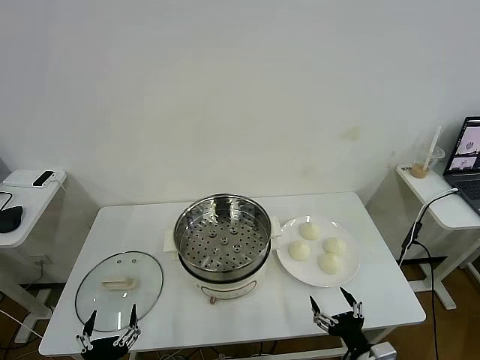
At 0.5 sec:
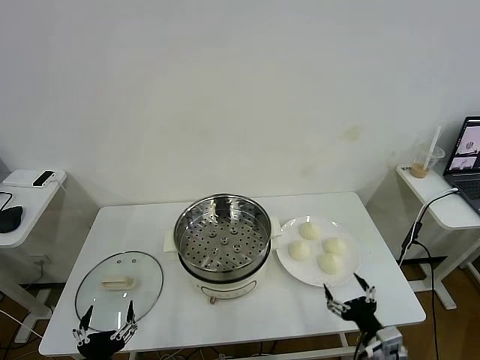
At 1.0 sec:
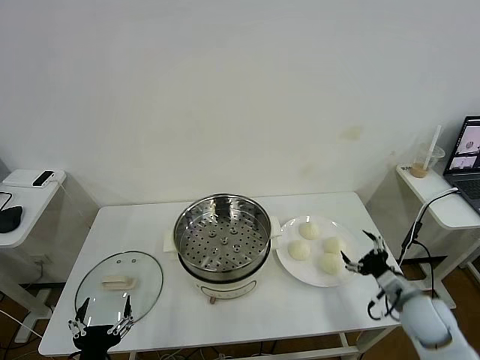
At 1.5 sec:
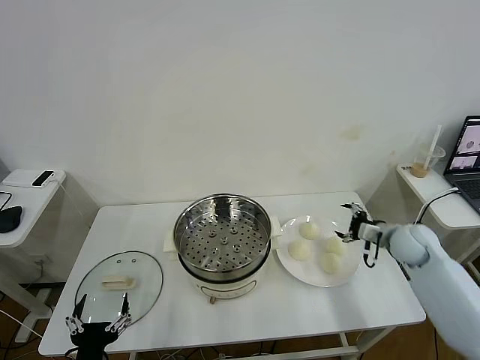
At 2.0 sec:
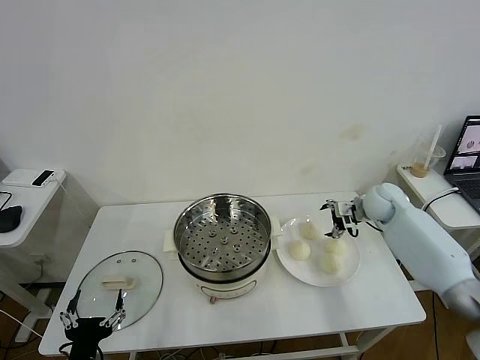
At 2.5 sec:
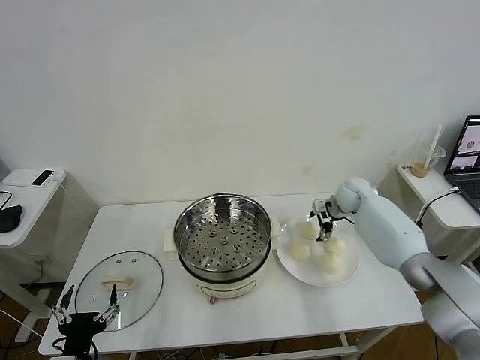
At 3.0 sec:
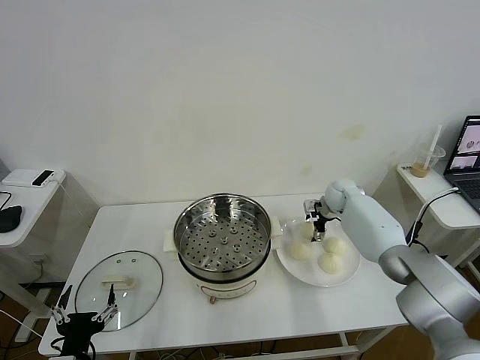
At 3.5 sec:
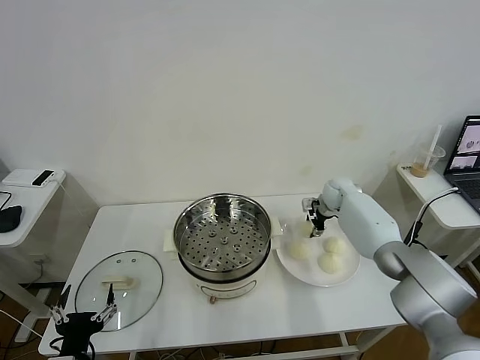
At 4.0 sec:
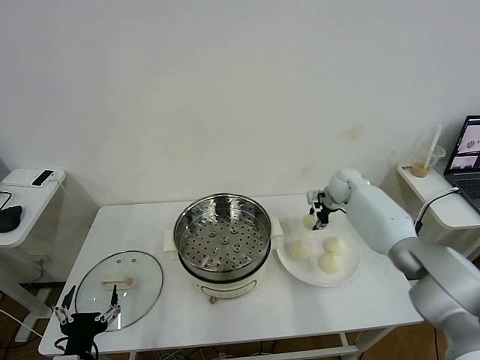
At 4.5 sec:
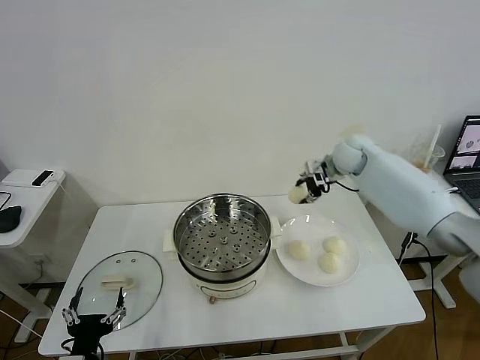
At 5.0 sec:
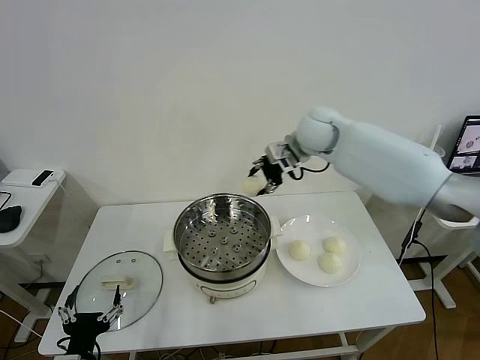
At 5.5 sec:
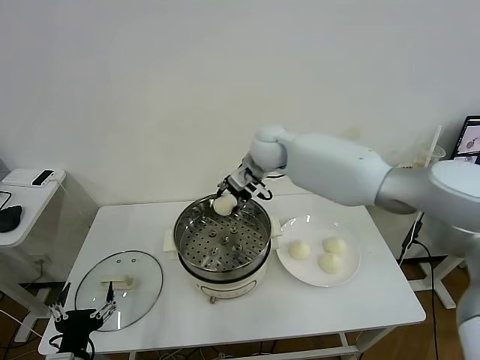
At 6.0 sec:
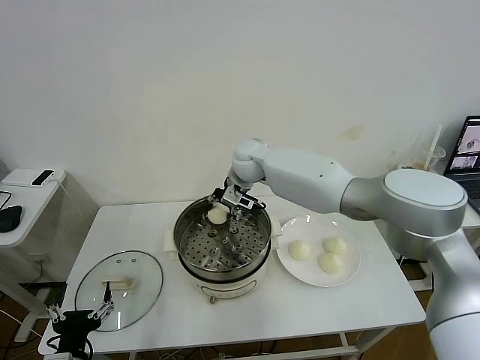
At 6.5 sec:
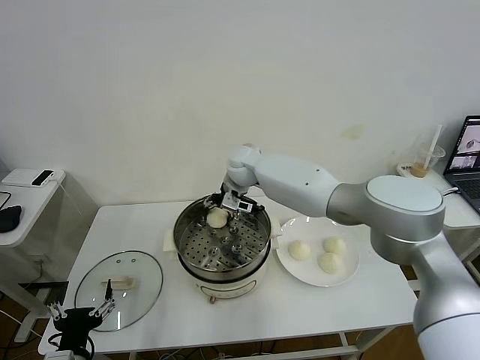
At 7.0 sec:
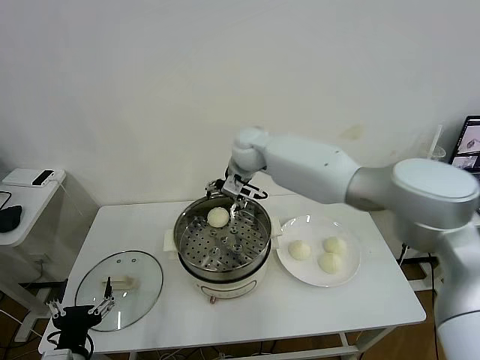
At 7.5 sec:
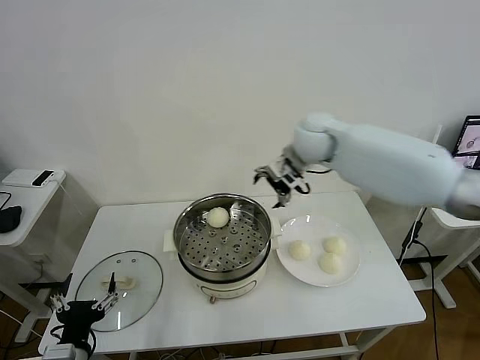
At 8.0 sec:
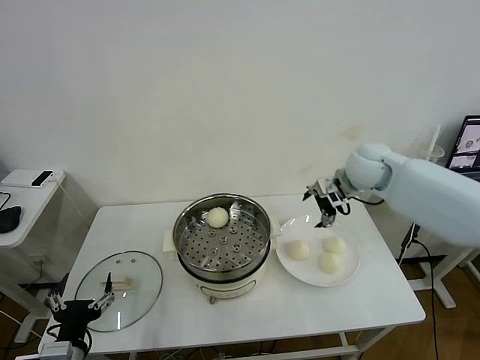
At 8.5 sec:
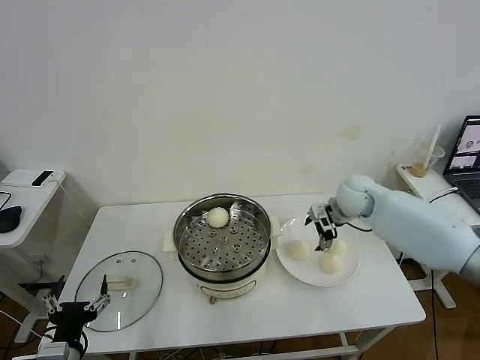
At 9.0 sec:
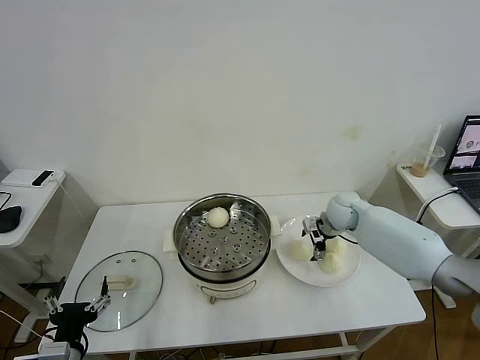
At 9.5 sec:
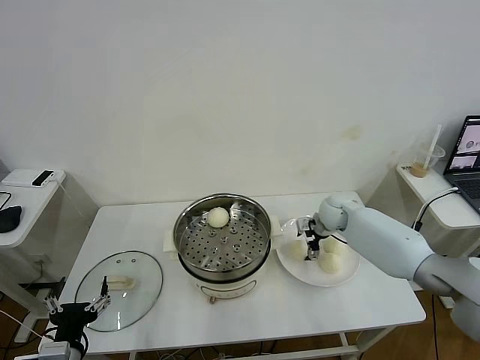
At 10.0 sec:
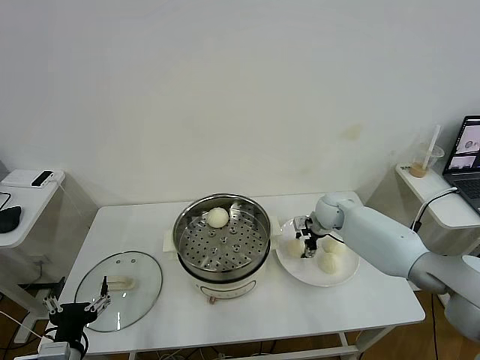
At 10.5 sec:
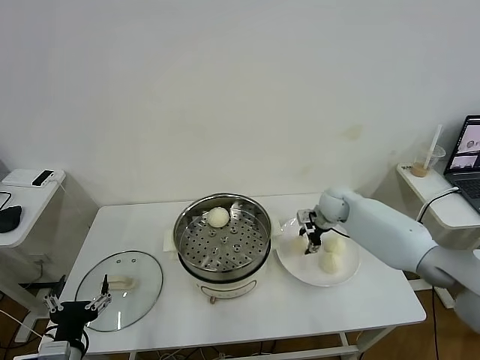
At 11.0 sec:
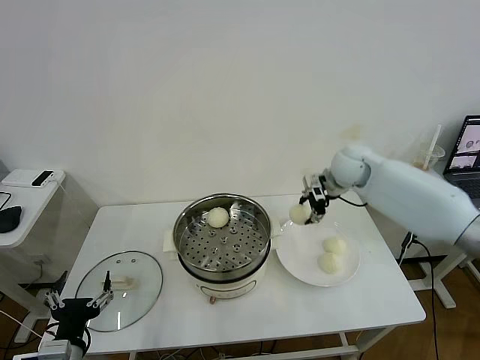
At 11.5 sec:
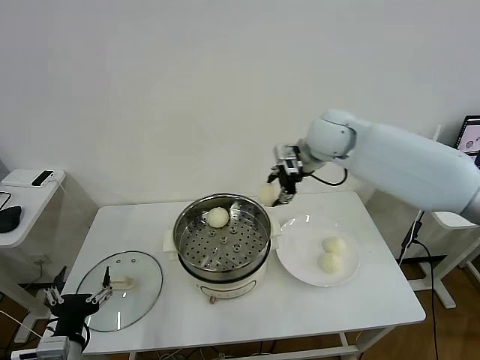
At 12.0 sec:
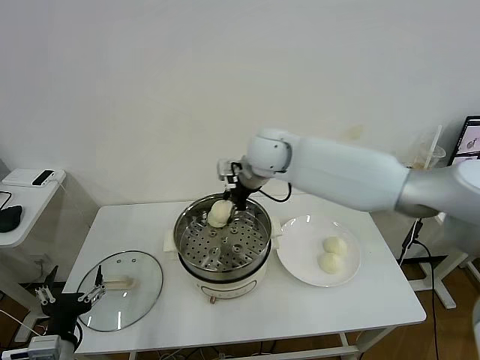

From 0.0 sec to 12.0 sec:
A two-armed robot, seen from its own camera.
Task of the whole recording: take steamed baozi put them in steamer then cover it.
Step, from 0.0 sec to 3.5 sec: Grasp the baozi in the plate with right gripper.
Step, from 4.0 sec to 6.5 sec: Place the baozi on the steamer with right gripper.
Step, from 7.0 sec to 10.0 sec: Grasp the baozi in the plate with right gripper.
From 2.0 sec to 4.0 sec: The right gripper is displaced forward and to the left by about 10 cm, and closes its fingers.
From 4.0 sec to 6.0 sec: The right gripper travels to the left by some 25 cm.
From 6.0 sec to 8.0 sec: The right gripper shifts approximately 25 cm to the right, and opens.
From 8.0 sec to 10.0 sec: The right gripper goes some 20 cm downward, and closes.
From 10.0 sec to 12.0 sec: The right gripper heads upward and to the left, covering roughly 30 cm.

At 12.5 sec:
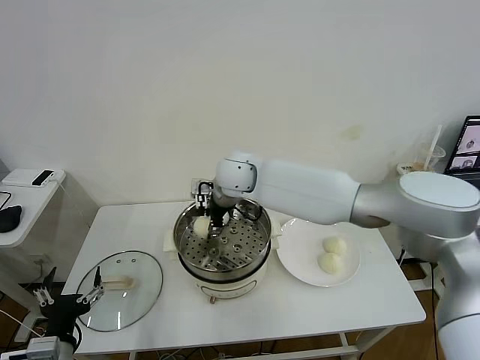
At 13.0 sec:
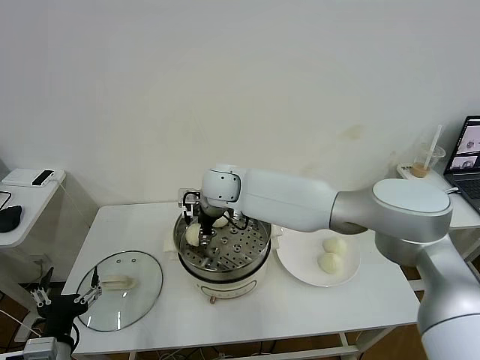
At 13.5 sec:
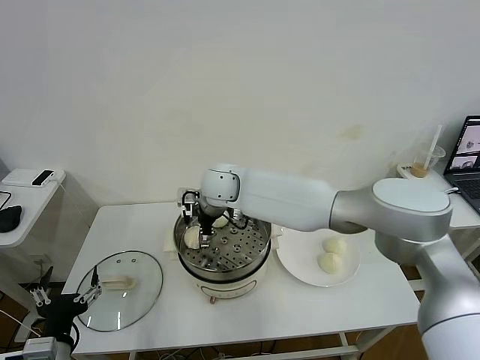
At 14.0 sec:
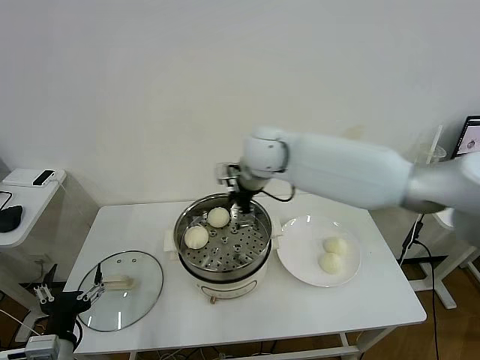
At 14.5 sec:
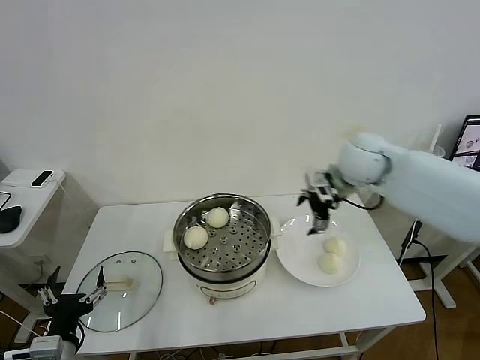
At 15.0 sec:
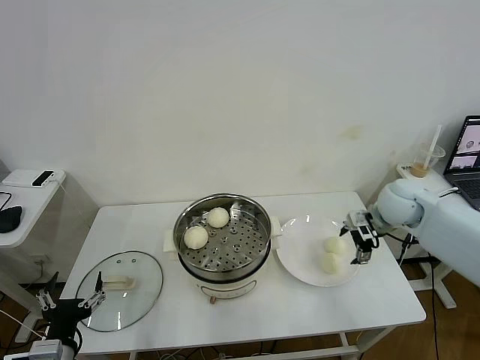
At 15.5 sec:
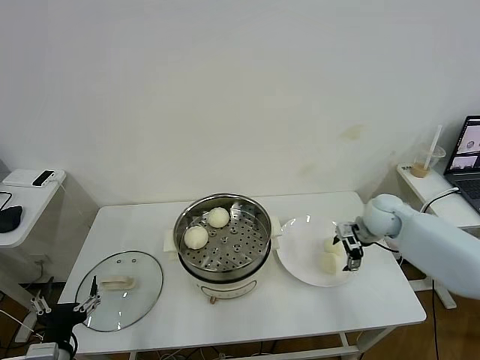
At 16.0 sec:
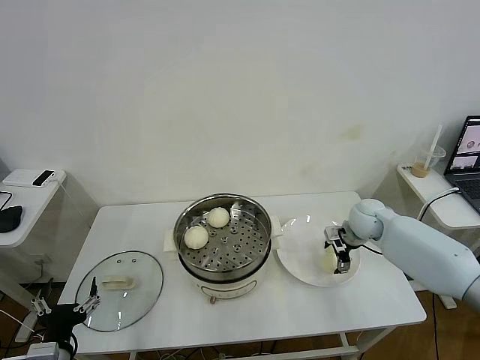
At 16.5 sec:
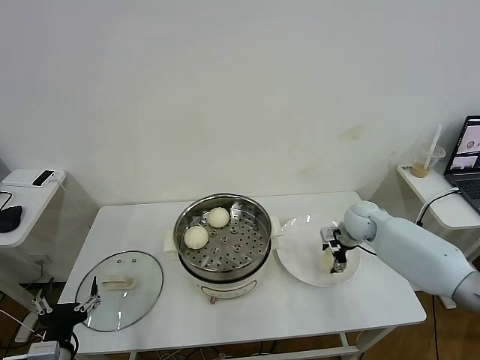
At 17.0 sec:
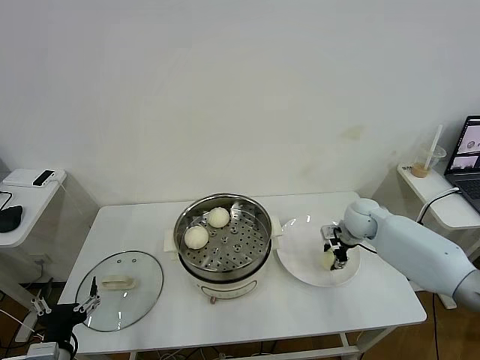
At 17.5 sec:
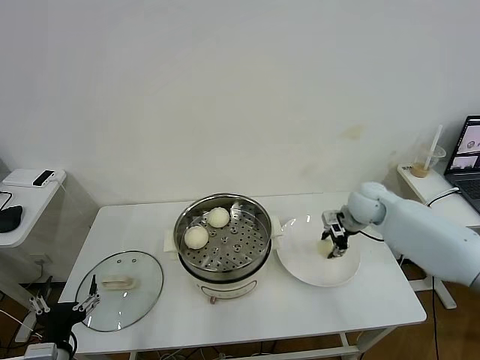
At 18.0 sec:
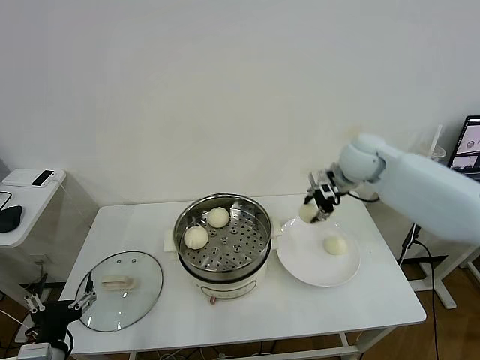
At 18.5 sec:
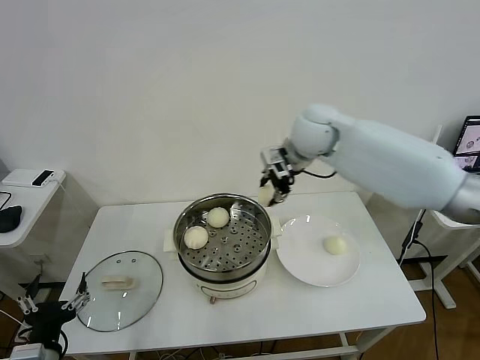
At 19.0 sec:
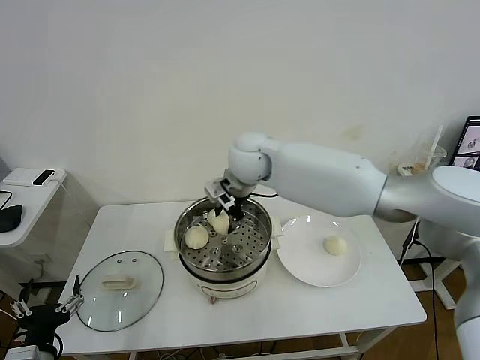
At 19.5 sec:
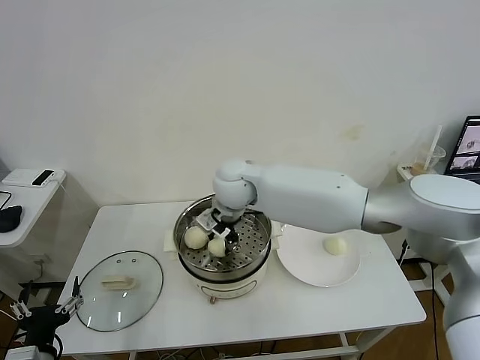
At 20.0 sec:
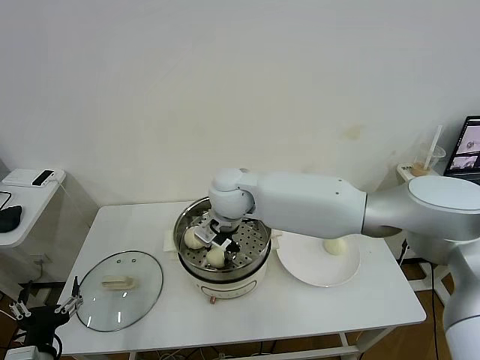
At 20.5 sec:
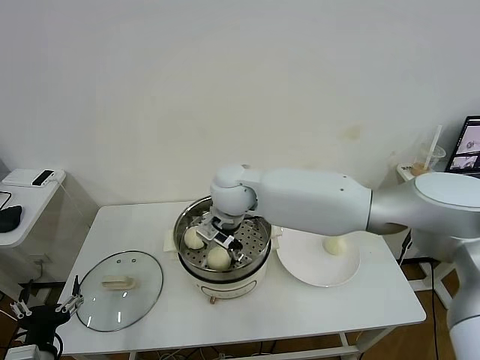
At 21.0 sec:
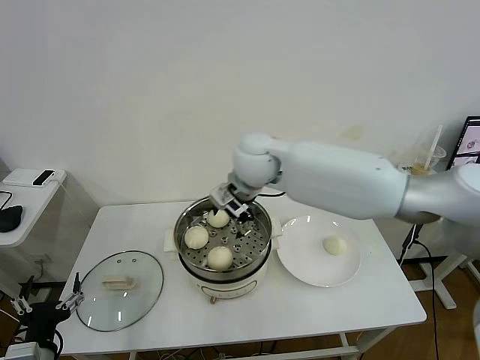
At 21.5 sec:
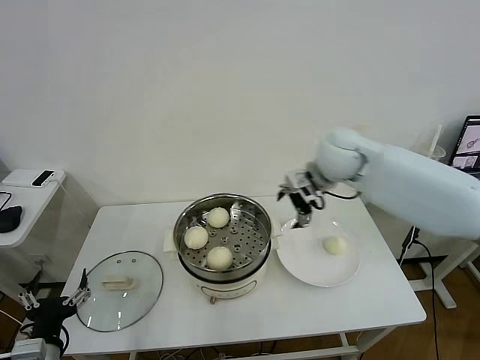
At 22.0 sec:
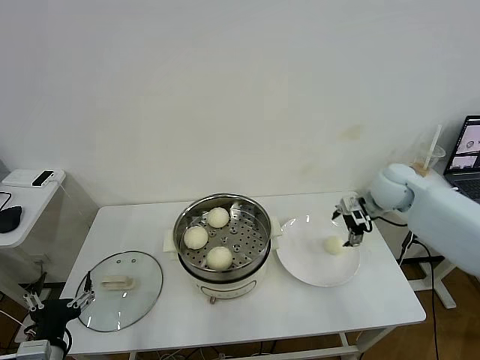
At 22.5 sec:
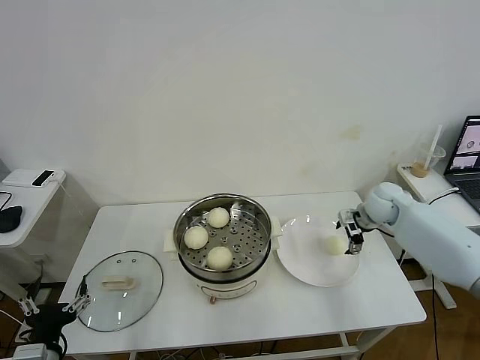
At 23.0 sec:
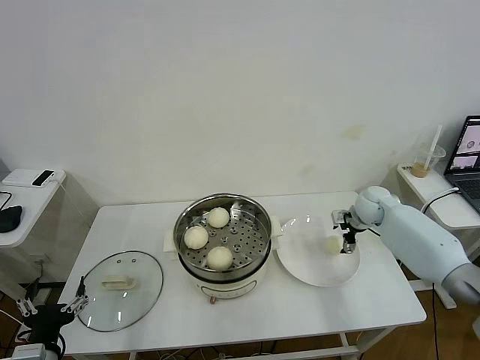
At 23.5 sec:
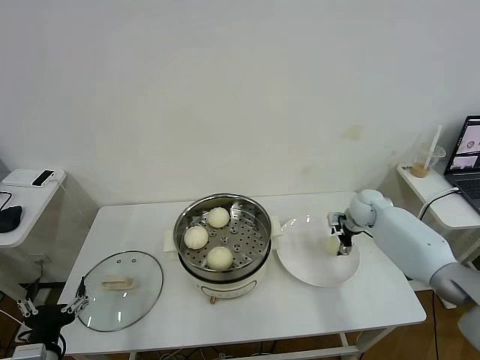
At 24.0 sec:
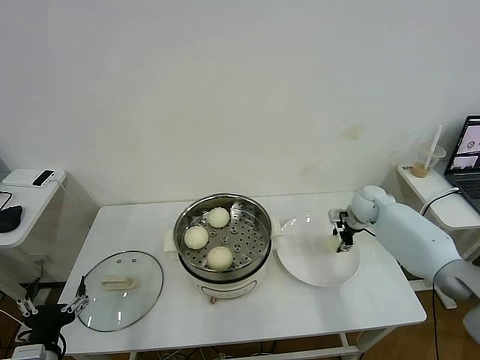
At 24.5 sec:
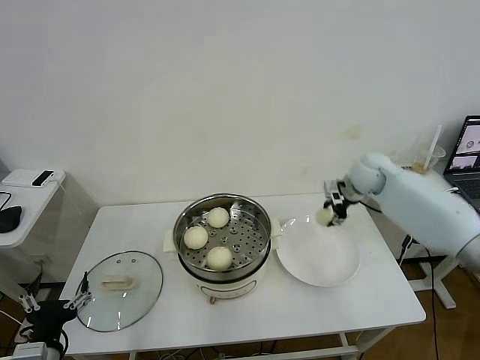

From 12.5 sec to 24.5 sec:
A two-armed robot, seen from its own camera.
Task of the whole recording: take steamed baozi put them in steamer then cover it.
Step, from 14.0 sec to 17.0 sec: Grasp the baozi in the plate with right gripper.
Step, from 17.5 sec to 20.5 sec: Place the baozi on the steamer with right gripper.
Step, from 21.0 sec to 23.5 sec: Grasp the baozi in the plate with right gripper.
From 12.5 sec to 14.5 sec: The right gripper shifts approximately 25 cm to the right, and opens its fingers.
From 14.5 sec to 16.5 sec: The right gripper is displaced downward by approximately 20 cm.
From 16.5 sec to 18.5 sec: The right gripper goes about 30 cm upward and to the left, and closes up.
From 18.5 sec to 20.5 sec: The right gripper heads to the left, downward and backward, covering some 20 cm, and opens its fingers.
From 20.5 sec to 22.5 sec: The right gripper travels to the right by approximately 35 cm.
From 22.5 sec to 24.5 sec: The right gripper heads upward, covering approximately 5 cm, and closes.

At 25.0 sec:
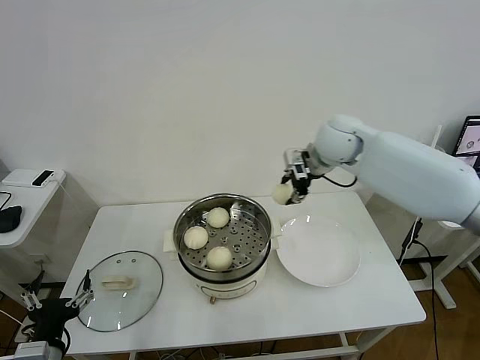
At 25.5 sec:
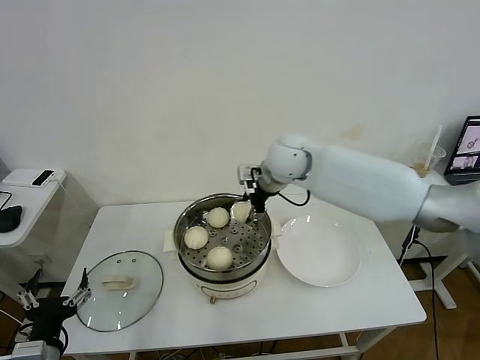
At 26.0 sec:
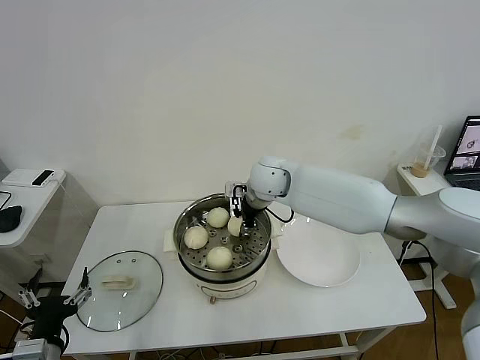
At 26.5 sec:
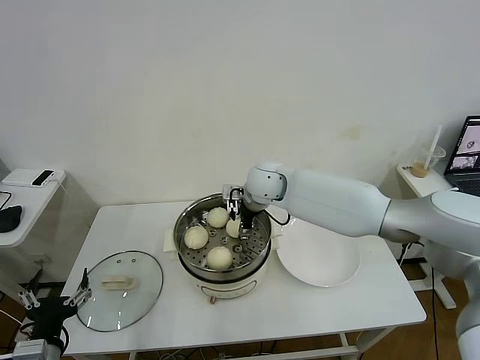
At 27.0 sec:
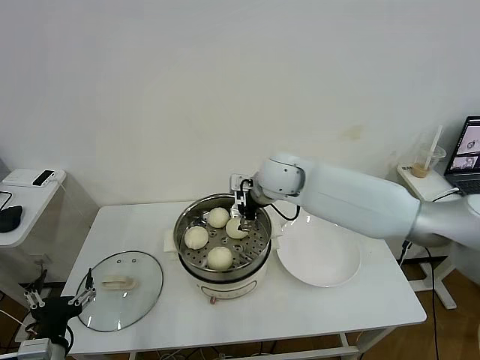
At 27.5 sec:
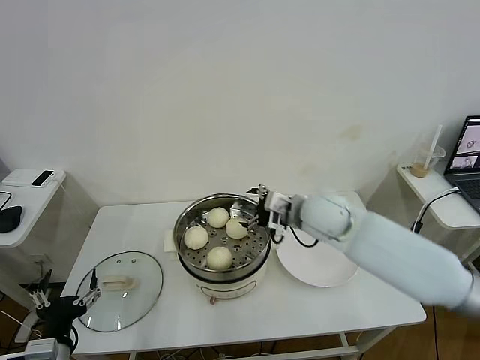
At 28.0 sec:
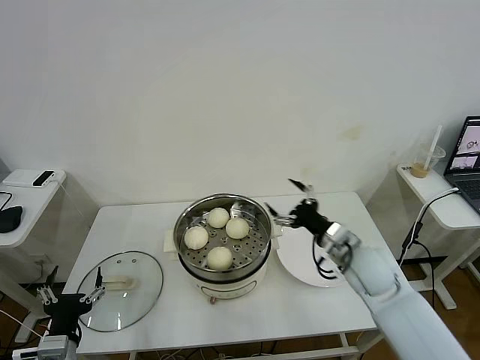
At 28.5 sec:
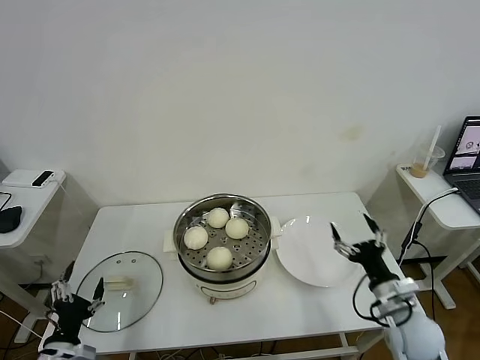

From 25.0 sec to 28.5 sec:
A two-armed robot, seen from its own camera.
Task of the whole recording: take steamed baozi put them in steamer then cover it.
Step, from 25.0 sec to 26.5 sec: Place the baozi on the steamer with right gripper.
From 25.0 sec to 27.0 sec: The right gripper heads to the left and downward, covering some 15 cm, and opens up.
From 27.0 sec to 28.5 sec: The right gripper travels to the right, backward and downward by about 40 cm. Meanwhile the left gripper goes approximately 5 cm downward.
